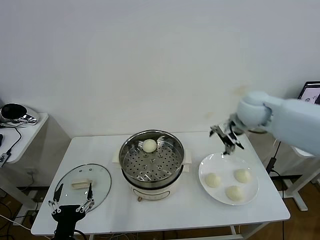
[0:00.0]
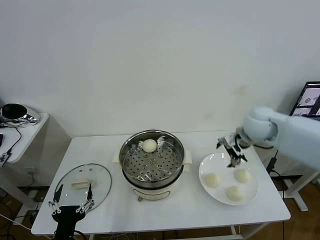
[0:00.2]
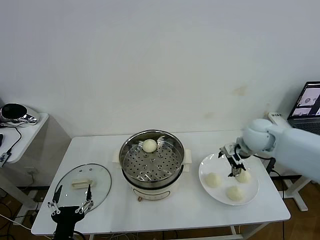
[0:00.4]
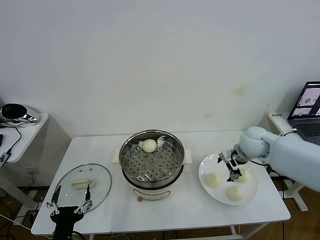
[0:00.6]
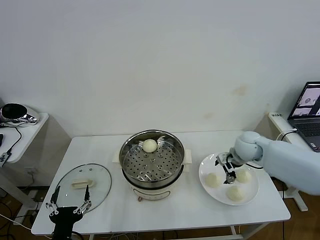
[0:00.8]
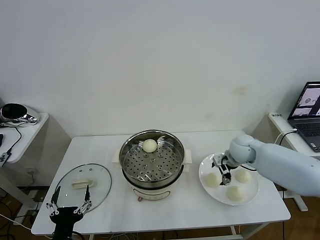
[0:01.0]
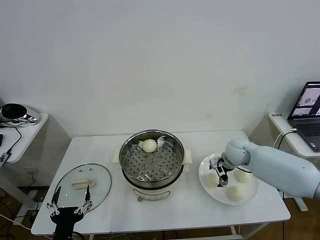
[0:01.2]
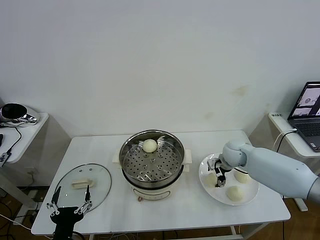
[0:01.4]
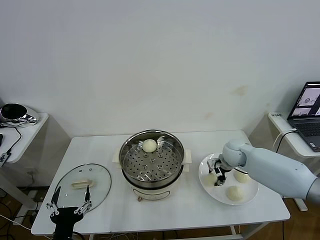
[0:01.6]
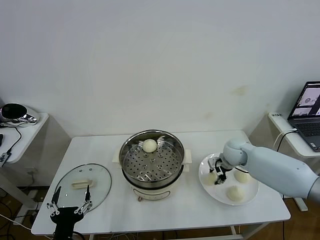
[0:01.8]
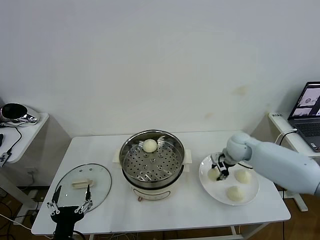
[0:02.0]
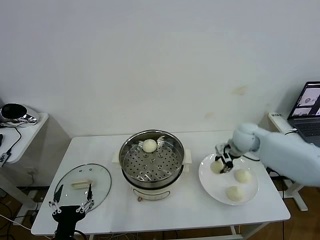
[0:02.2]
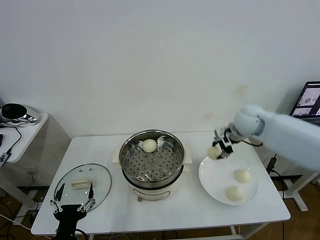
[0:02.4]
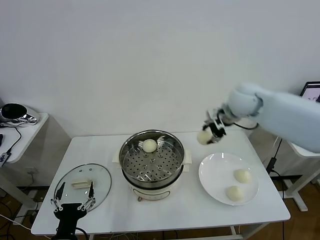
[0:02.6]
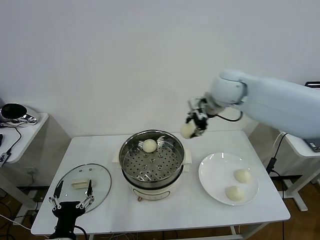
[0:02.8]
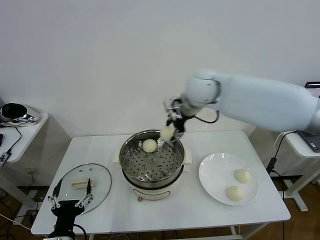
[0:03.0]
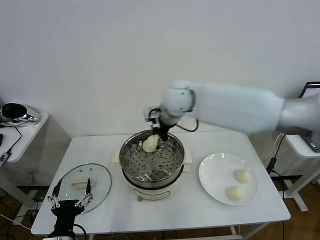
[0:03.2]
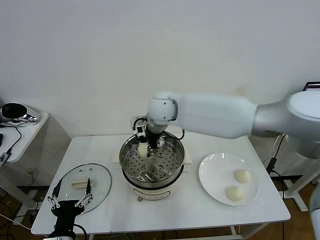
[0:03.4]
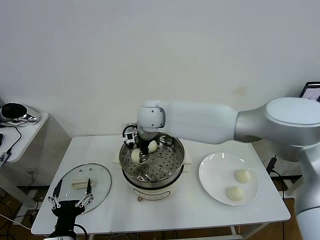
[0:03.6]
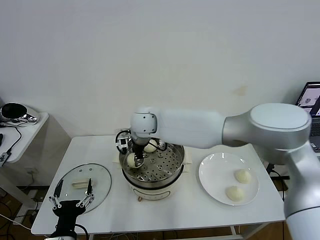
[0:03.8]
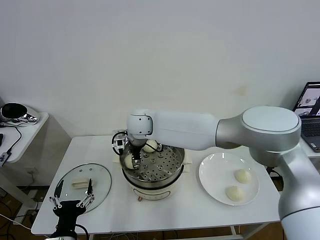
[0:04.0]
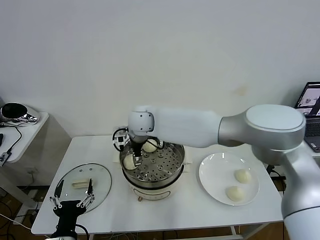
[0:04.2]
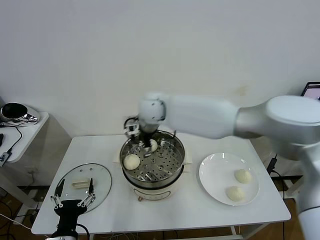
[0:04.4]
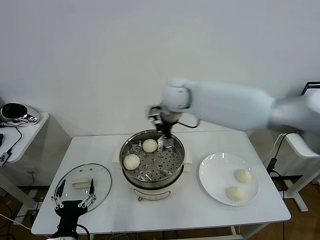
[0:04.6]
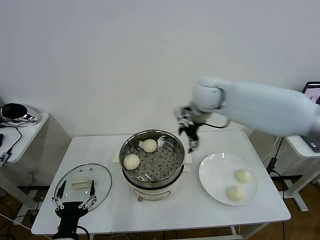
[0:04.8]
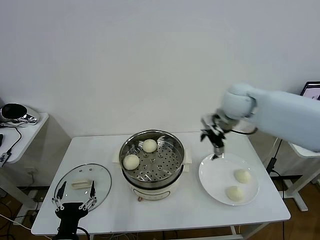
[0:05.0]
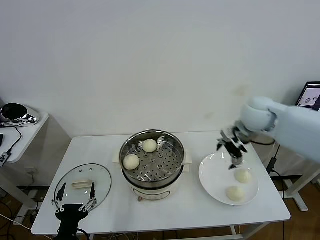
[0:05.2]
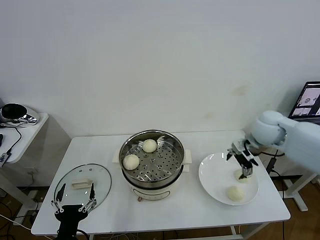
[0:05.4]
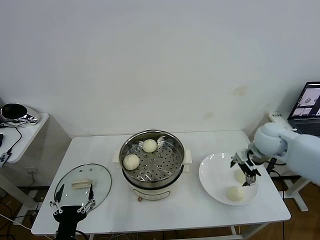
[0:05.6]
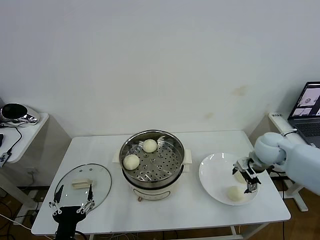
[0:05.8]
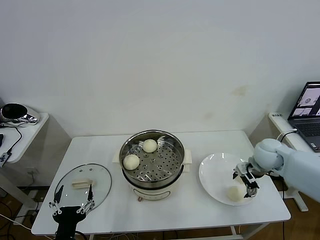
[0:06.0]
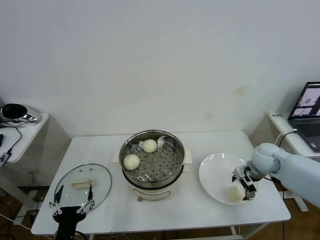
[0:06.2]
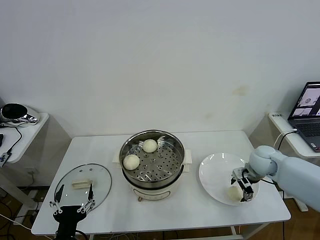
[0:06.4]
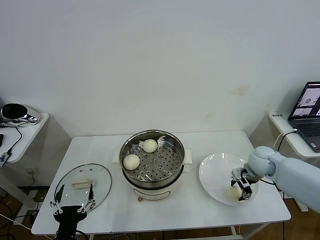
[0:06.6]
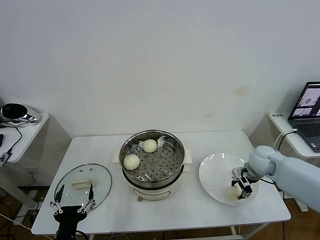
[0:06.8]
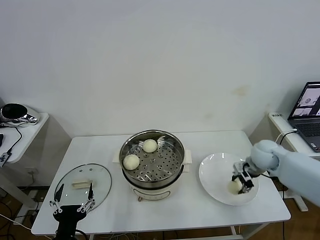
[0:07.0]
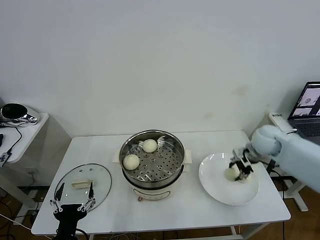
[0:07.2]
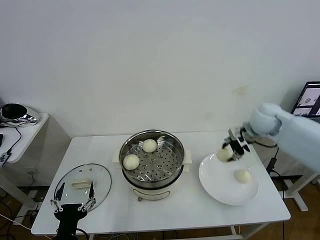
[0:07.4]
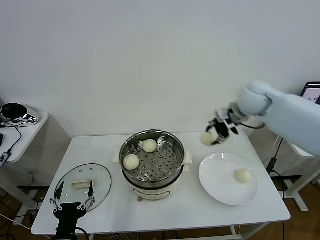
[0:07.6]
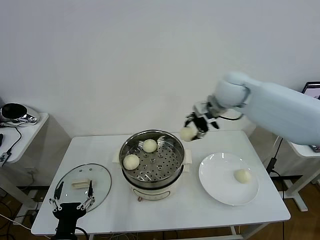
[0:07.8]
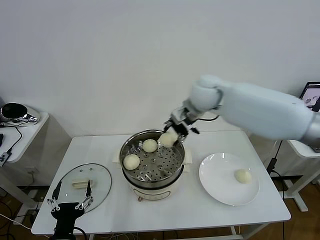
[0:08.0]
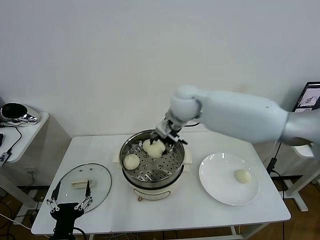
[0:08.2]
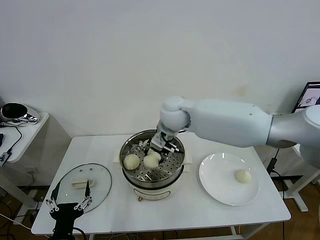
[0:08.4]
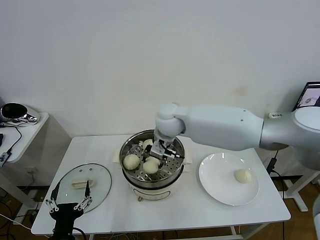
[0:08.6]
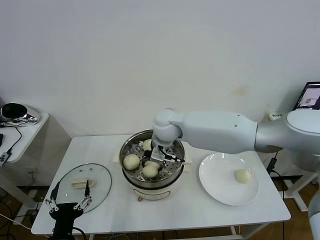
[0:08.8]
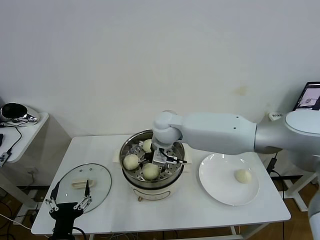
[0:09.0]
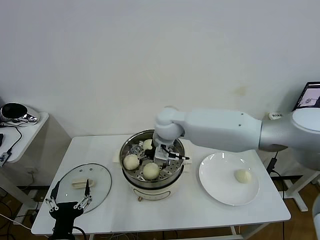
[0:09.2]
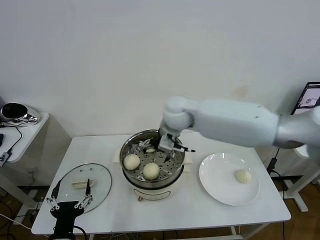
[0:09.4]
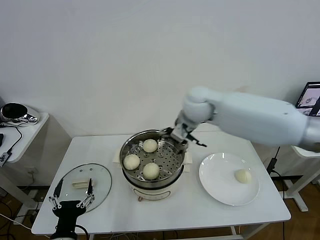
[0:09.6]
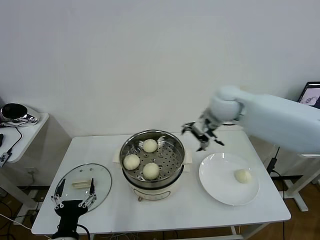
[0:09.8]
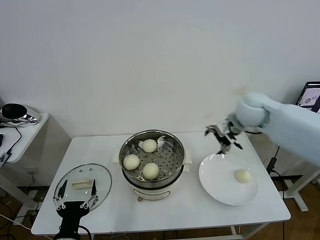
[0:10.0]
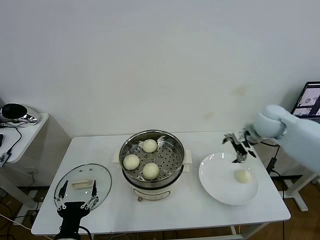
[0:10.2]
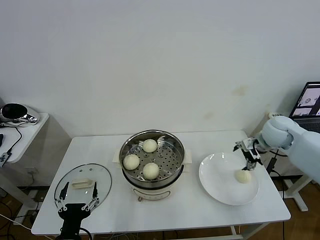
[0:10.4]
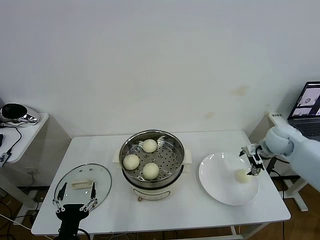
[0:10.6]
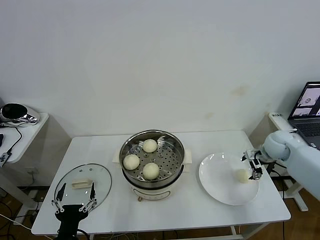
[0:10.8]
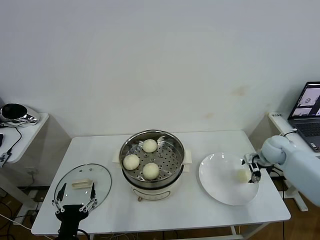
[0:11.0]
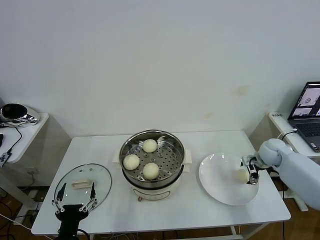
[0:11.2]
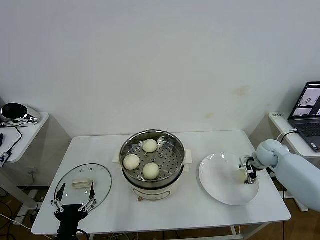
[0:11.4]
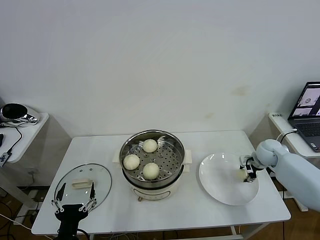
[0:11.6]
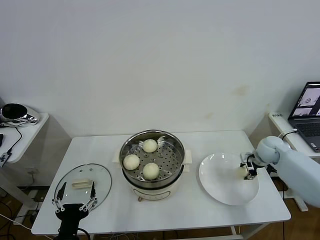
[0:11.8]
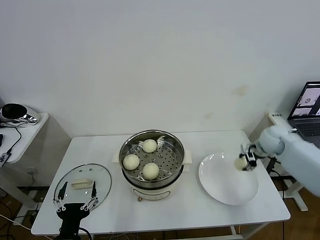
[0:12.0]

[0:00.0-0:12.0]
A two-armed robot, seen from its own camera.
Task of the whole recording: take steamed baozi put them in steamer then cover it.
Step, 0.0 to 1.6 s: Grasp the baozi in the plate with right gripper.
Step, 1.8 to 4.0 s: Place the baozi on the steamer with right gripper.
Step, 4.2 to 6.8 s: Grasp the baozi in the plate with right gripper.
Step, 7.0 to 9.0 s: Place the baozi on the steamer with right gripper.
Step, 9.4 to 11.6 s: Grasp the baozi in the plate with right gripper.
0.0 to 1.6 s: The right gripper is displaced downward by roughly 20 cm, and closes up.
1.6 to 3.0 s: The right gripper heads upward and to the left, covering some 30 cm.
3.0 to 4.4 s: The right gripper travels to the left by some 10 cm, and opens up.
4.4 to 6.0 s: The right gripper heads to the right and downward, covering approximately 40 cm.
6.0 to 7.6 s: The right gripper travels upward, to the left and forward by about 25 cm, and closes up.
7.6 to 9.0 s: The right gripper moves to the left and downward, some 25 cm, and opens up.
9.0 to 10.4 s: The right gripper moves to the right, roughly 35 cm.
10.4 to 12.0 s: The right gripper moves downward, about 5 cm, and closes.

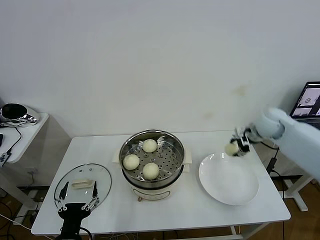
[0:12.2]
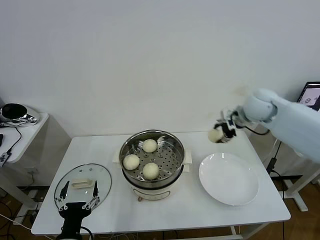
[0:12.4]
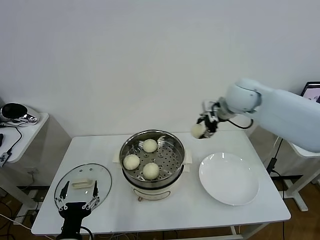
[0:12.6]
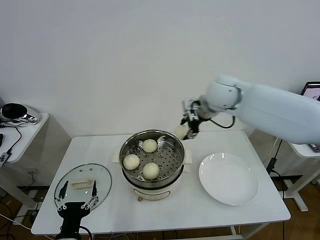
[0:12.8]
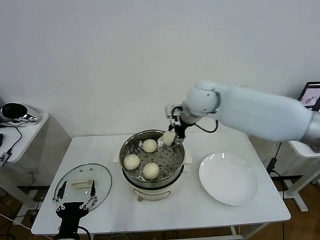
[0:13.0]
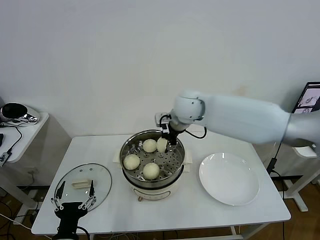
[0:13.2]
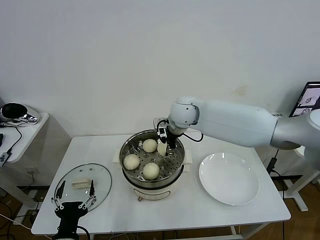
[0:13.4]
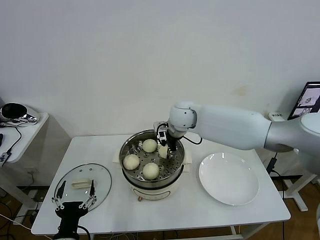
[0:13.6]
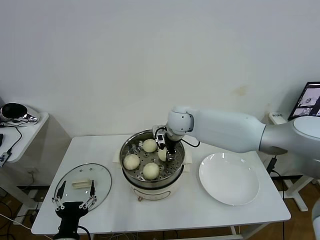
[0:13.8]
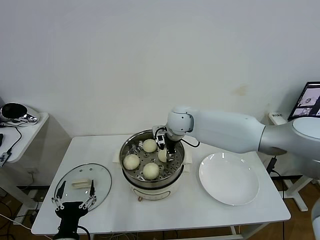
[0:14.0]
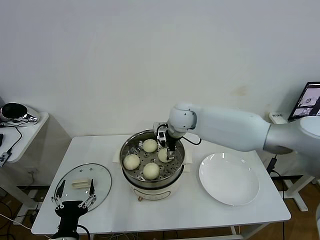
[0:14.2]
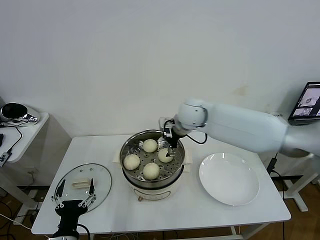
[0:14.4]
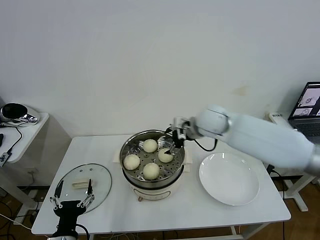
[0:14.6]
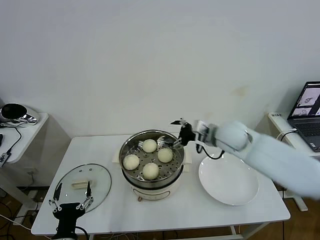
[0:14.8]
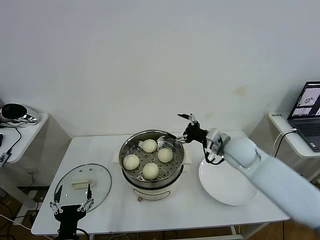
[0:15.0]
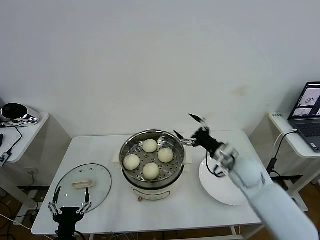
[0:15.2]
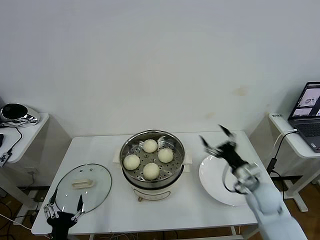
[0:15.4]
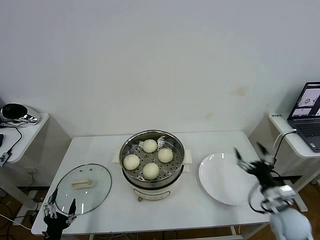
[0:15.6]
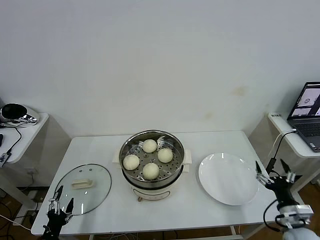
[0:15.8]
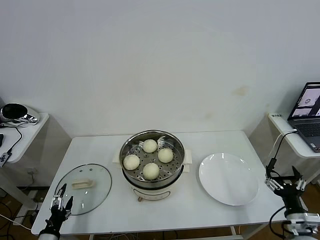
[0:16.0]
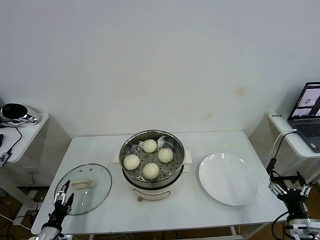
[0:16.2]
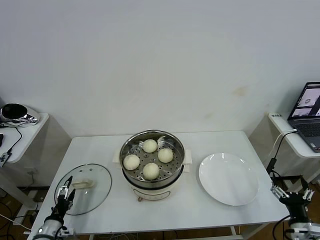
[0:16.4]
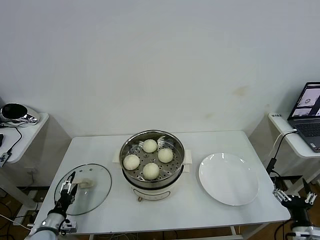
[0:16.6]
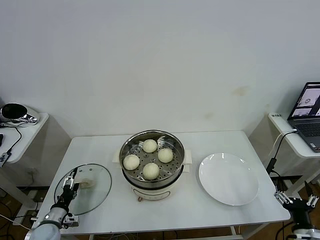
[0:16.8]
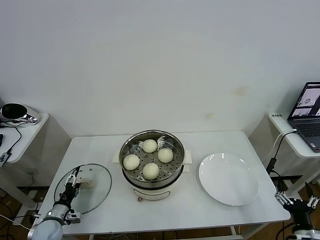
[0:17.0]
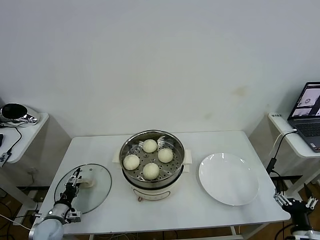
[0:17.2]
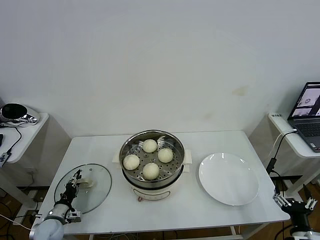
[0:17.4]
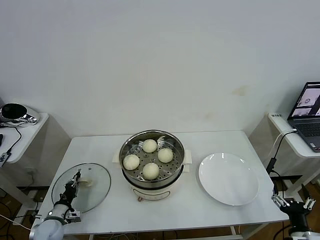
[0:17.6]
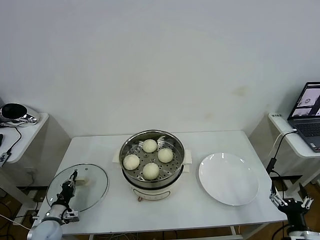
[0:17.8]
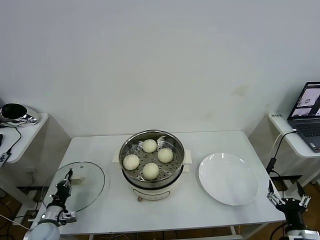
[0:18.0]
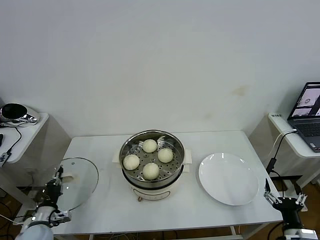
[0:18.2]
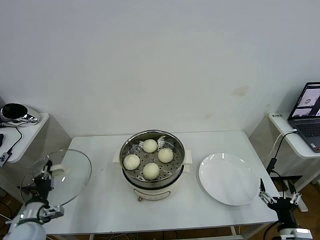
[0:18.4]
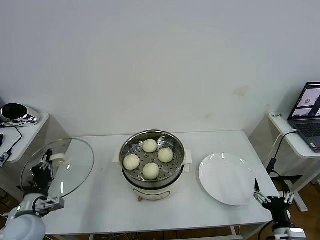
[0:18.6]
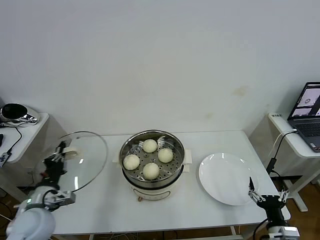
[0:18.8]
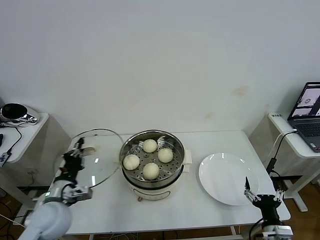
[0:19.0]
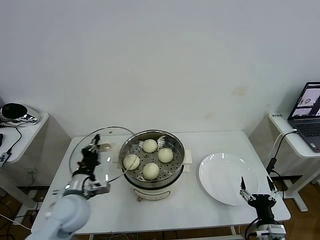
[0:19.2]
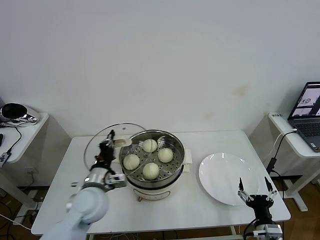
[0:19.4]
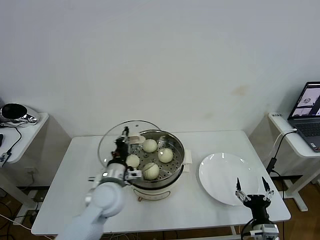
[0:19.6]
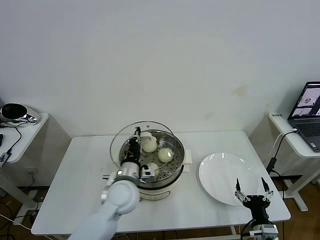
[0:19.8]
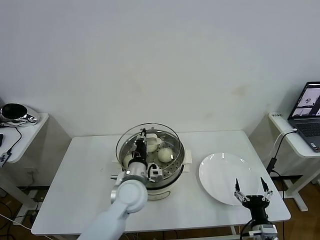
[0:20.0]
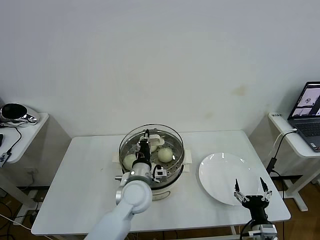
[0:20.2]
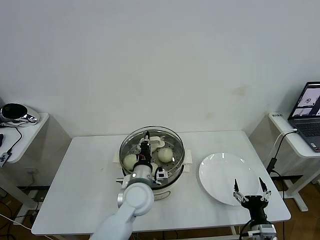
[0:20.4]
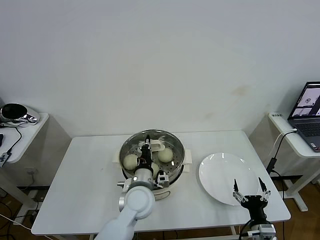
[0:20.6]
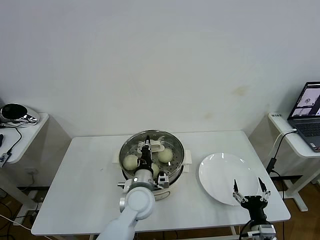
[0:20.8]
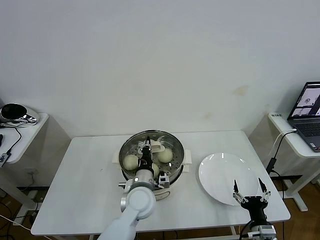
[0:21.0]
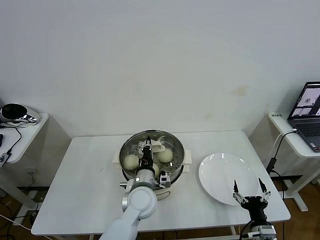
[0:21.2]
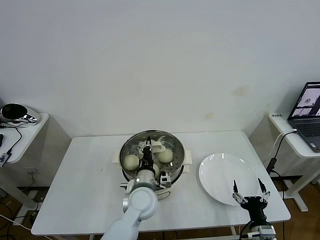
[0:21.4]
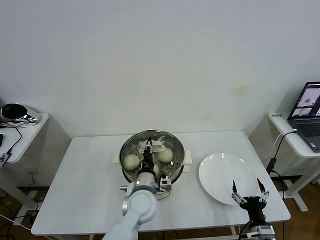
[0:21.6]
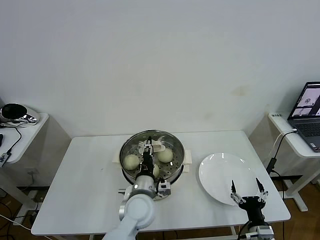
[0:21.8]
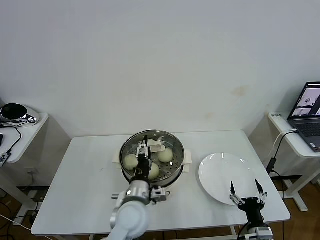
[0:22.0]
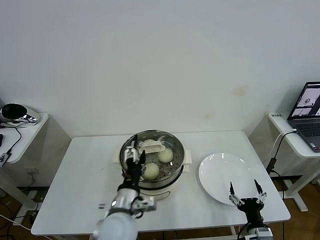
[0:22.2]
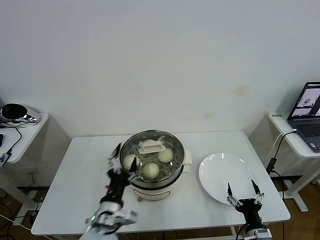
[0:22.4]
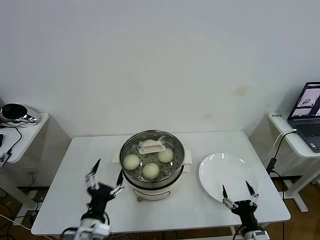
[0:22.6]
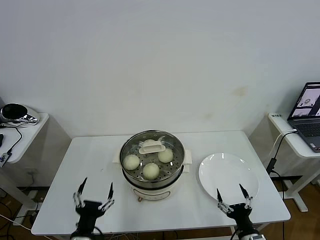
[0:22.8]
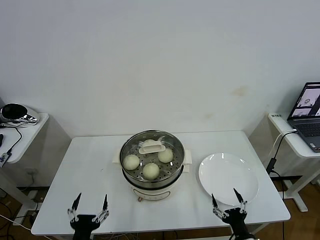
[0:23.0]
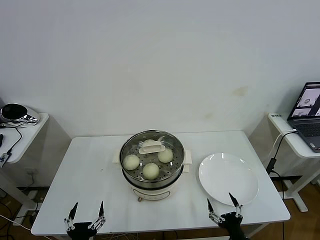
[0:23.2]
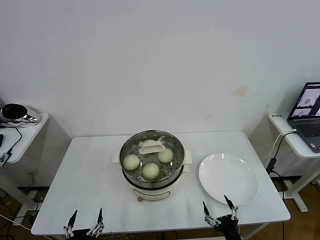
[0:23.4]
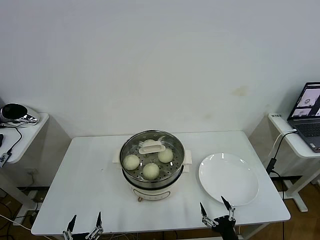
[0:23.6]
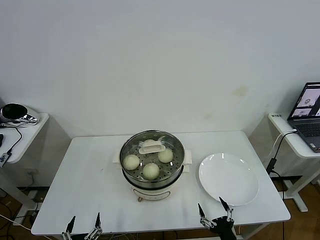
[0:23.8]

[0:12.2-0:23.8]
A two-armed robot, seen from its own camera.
Task of the whole recording: take steamed baozi put them in steamer then cover it.
Step, 12.2 to 14.2 s: Place the baozi on the steamer with right gripper.
Step, 14.4 to 17.8 s: Grasp the pot lid with left gripper.
Step, 18.0 to 21.8 s: Place the pot lid on the steamer with left gripper.
12.2 to 13.6 s: The right gripper is displaced to the left by roughly 30 cm.
13.6 to 15.0 s: The right gripper moves to the right and backward, approximately 20 cm, and opens.
15.0 to 16.6 s: The left gripper goes about 20 cm to the left, downward and forward. The right gripper heads backward, to the right and downward, covering about 35 cm.
16.6 to 18.0 s: The left gripper closes its fingers.
18.0 to 19.4 s: The right gripper shifts about 5 cm to the left, while the left gripper goes approximately 30 cm to the right and upward.
19.4 to 21.0 s: The left gripper shifts approximately 15 cm to the right.
21.0 to 22.4 s: The left gripper travels backward and to the left by about 15 cm, and opens up.
22.4 to 23.8 s: The right gripper goes about 5 cm to the left. The left gripper moves backward, downward and to the left, approximately 20 cm.
